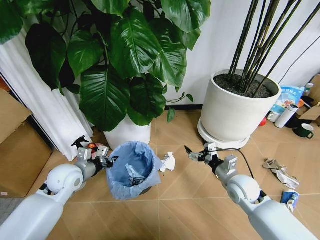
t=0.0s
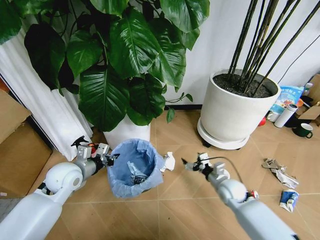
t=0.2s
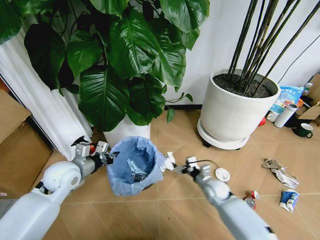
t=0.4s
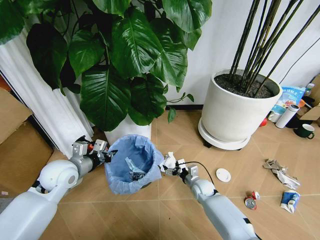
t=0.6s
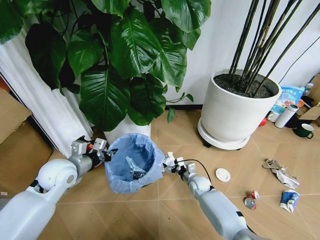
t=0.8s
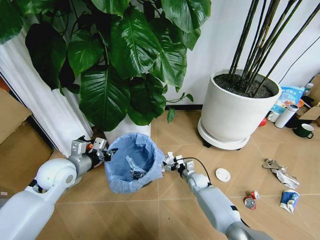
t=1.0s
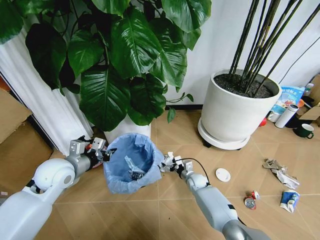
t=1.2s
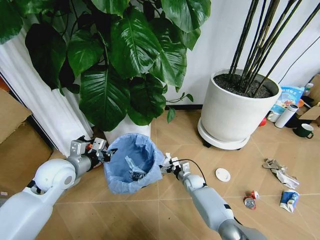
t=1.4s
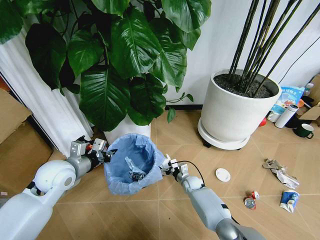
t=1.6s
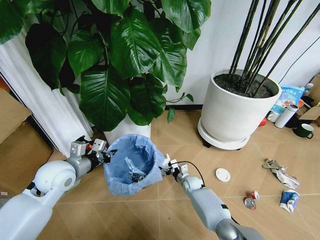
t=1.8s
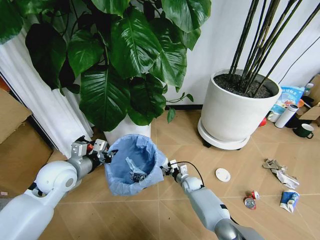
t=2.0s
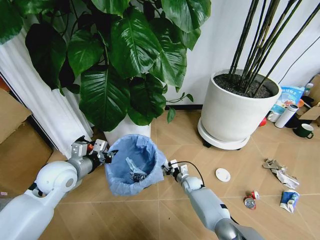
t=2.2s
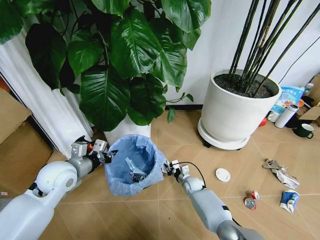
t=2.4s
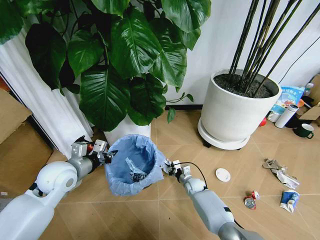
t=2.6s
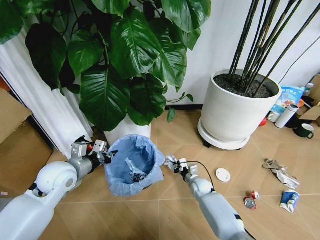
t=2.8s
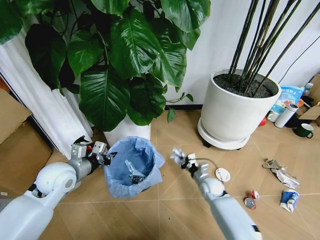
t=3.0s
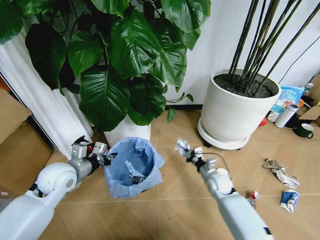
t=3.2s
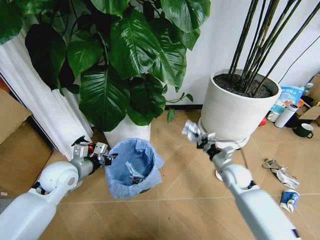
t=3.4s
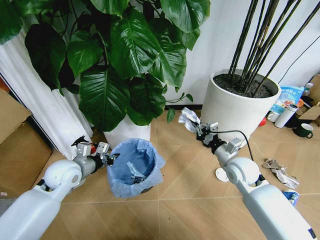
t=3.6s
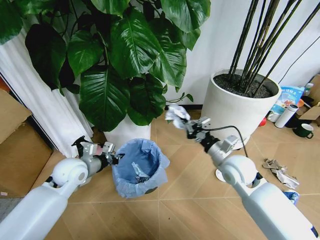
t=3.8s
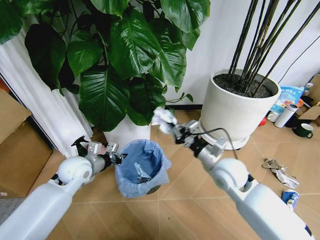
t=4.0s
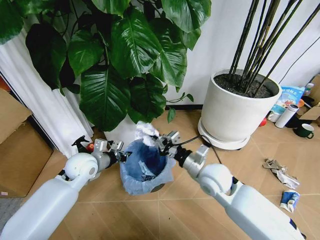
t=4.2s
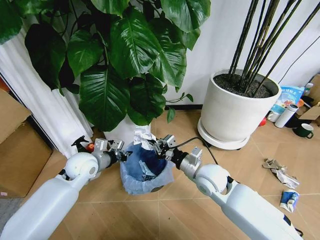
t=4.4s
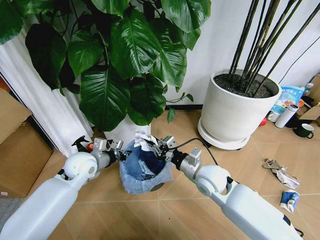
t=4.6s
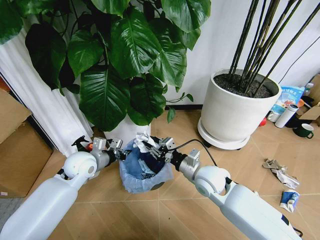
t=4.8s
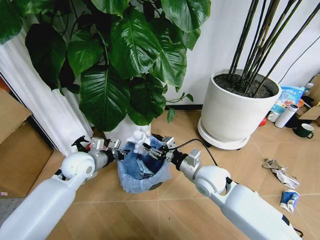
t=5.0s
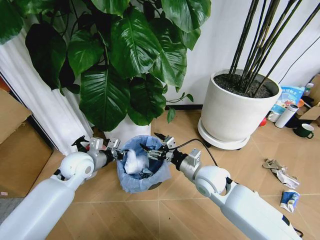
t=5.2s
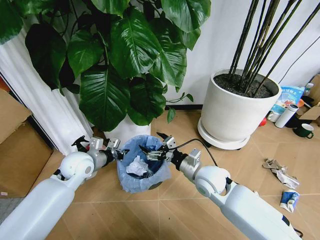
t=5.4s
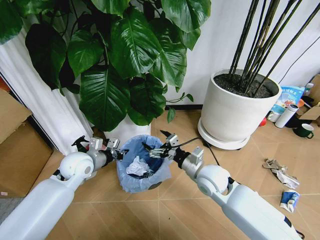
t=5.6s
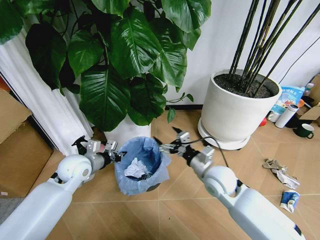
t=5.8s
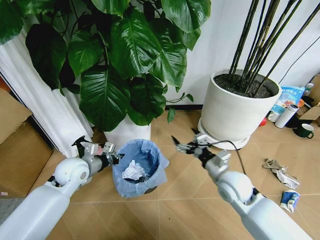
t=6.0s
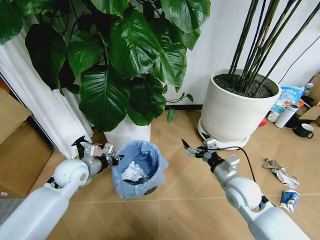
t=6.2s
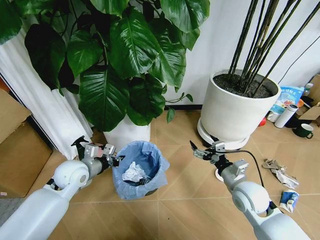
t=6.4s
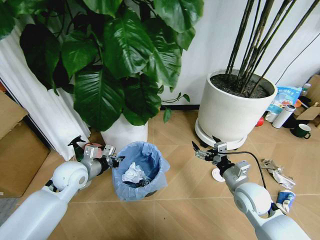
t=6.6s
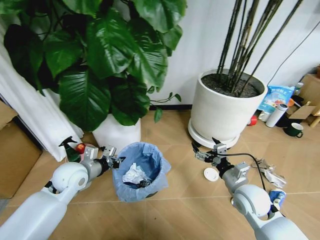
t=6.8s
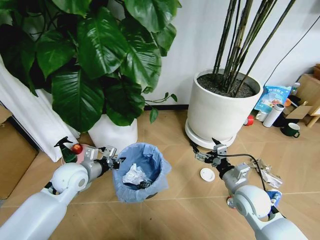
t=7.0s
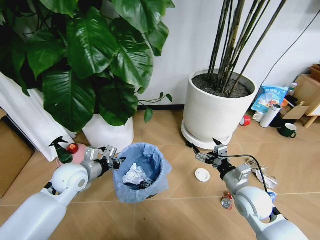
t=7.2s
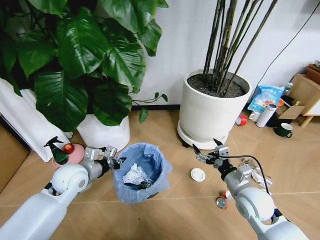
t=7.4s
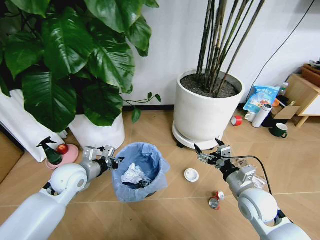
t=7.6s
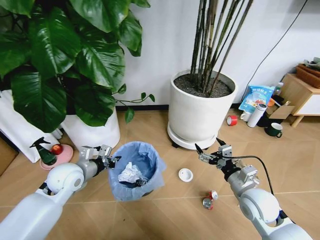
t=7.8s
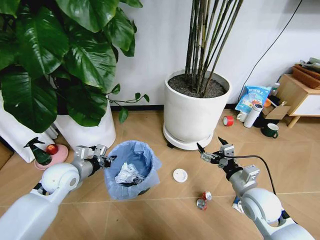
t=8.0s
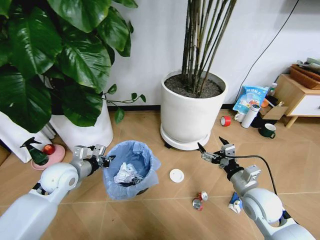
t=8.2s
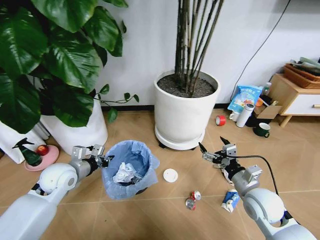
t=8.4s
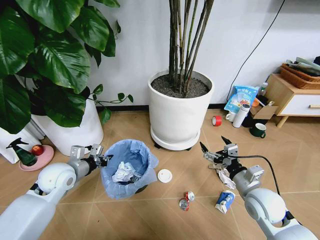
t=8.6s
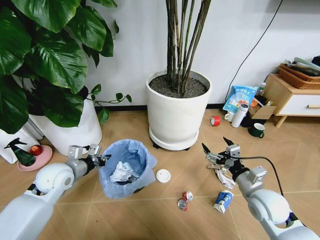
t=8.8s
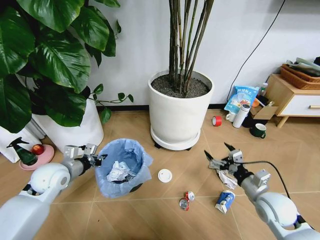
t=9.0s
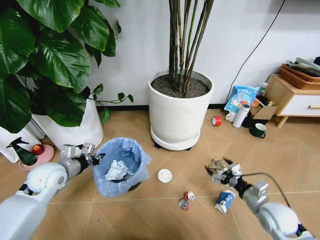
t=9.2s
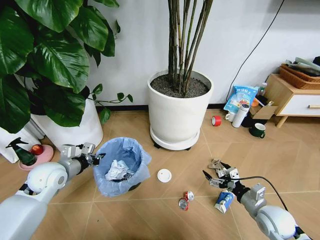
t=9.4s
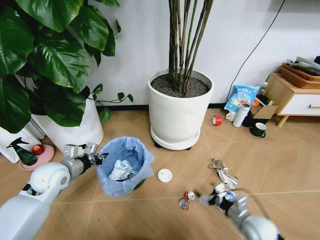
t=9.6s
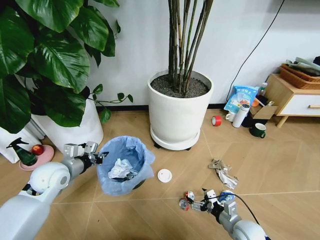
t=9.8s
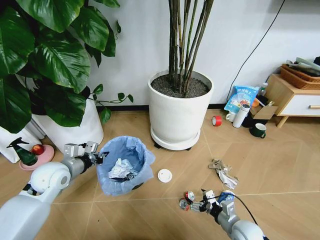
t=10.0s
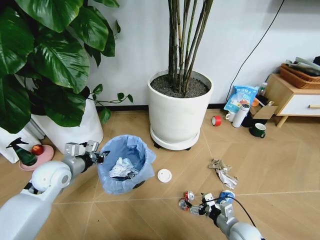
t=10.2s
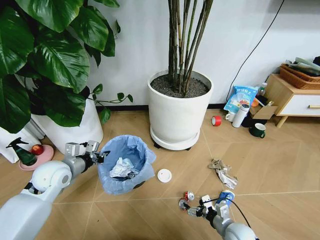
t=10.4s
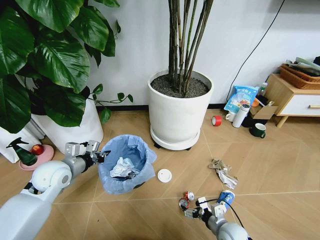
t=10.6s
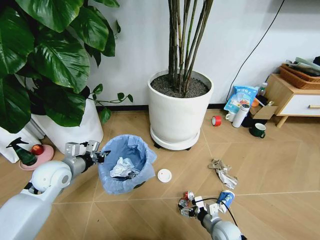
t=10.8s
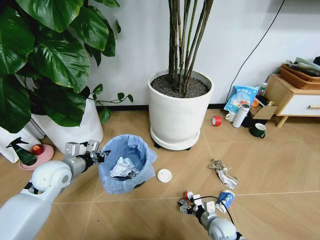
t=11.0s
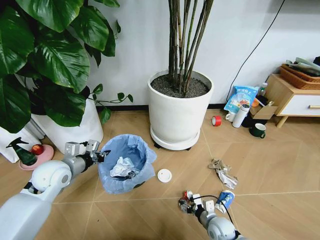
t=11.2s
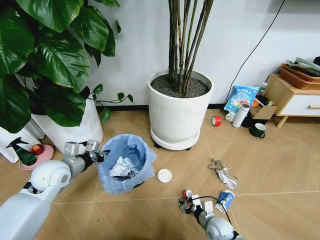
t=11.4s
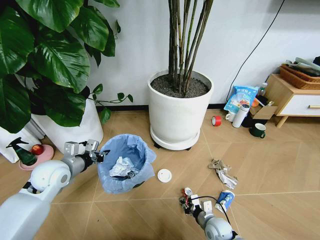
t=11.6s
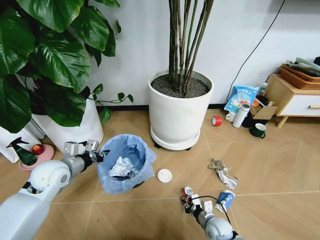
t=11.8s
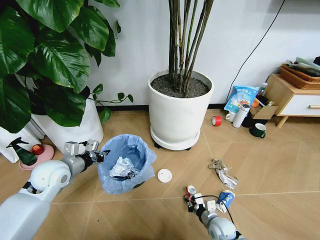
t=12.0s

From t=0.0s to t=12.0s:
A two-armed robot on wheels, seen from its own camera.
Task of the whole recording: Pick up the trash bin and place the garbage on the floor into it.
From t=0.0s to t=1.6s: The left gripper changes place by some 5 cm. Meanwhile the right gripper heads downward, to the left and forward, covering approximately 25 cm.
From t=1.6s to t=3.0s: The right gripper travels to the right and upward by roughly 10 cm, and closes.
From t=3.0s to t=4.4s: The right gripper shifts roughly 20 cm upward. The left gripper is displaced forward by some 5 cm.
From t=4.4s to t=6.0s: The right gripper shifts approximately 5 cm to the right, and opens up.
From t=6.0s to t=7.6s: The right gripper moves to the right and backward, approximately 10 cm.
From t=7.6s to t=9.0s: The left gripper travels to the left by some 5 cm, while the right gripper shifts some 5 cm to the right.
From t=9.0s to t=10.4s: The right gripper travels downward and to the left by approximately 20 cm.
From t=10.4s to t=12.0s: The right gripper changes place by roughly 5 cm, and closes its fingers.

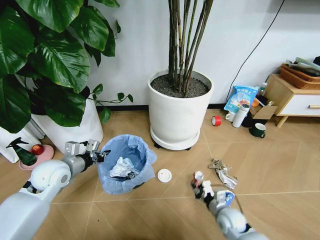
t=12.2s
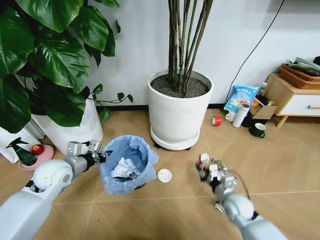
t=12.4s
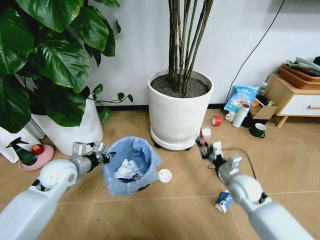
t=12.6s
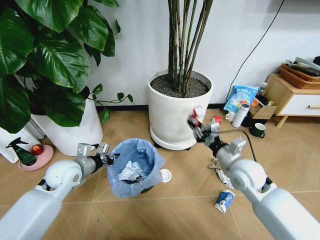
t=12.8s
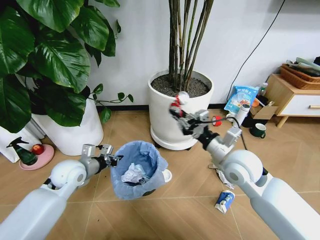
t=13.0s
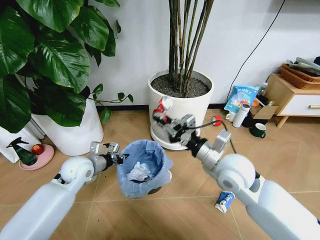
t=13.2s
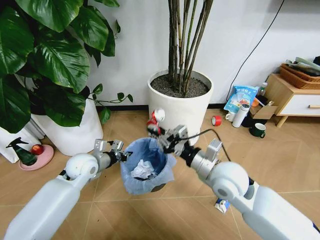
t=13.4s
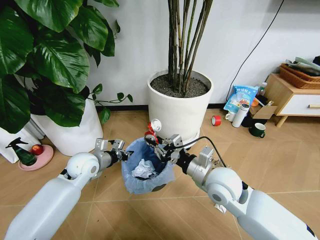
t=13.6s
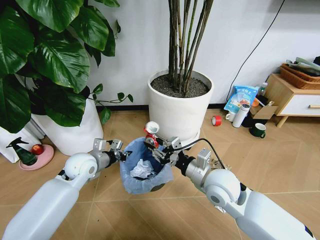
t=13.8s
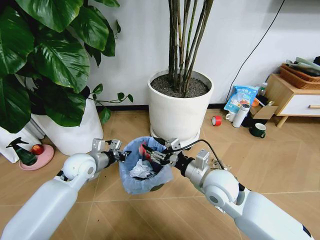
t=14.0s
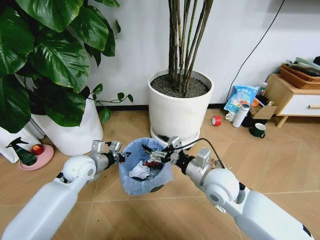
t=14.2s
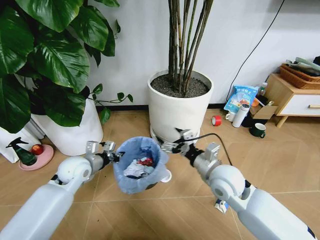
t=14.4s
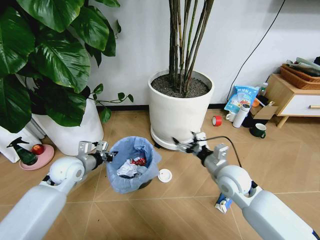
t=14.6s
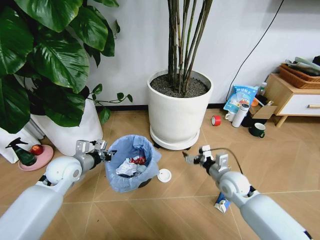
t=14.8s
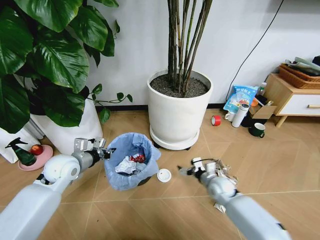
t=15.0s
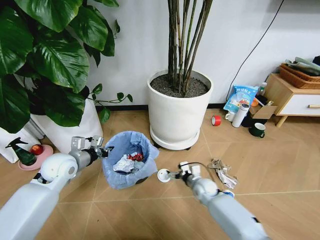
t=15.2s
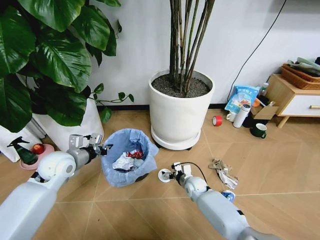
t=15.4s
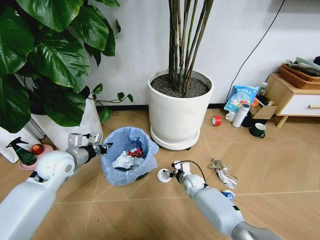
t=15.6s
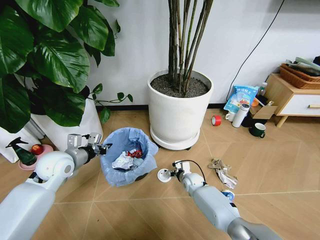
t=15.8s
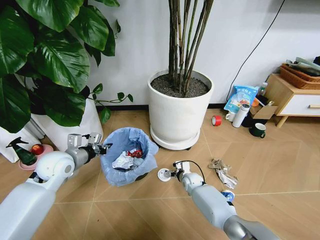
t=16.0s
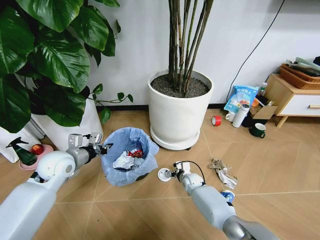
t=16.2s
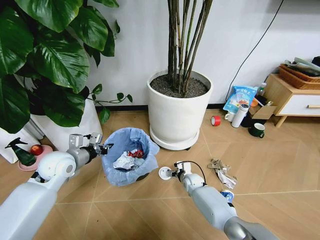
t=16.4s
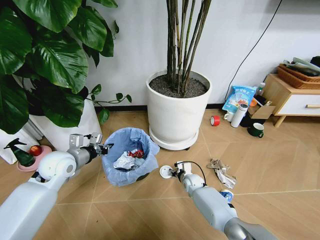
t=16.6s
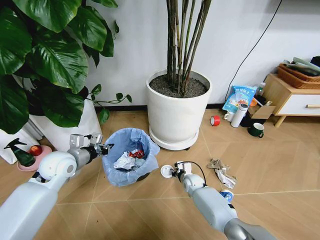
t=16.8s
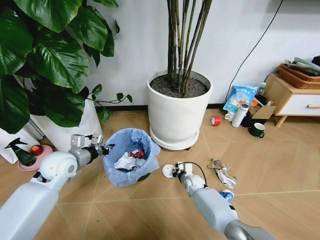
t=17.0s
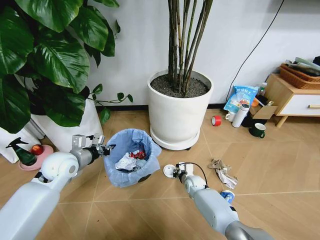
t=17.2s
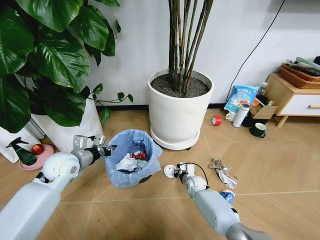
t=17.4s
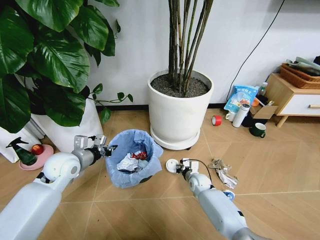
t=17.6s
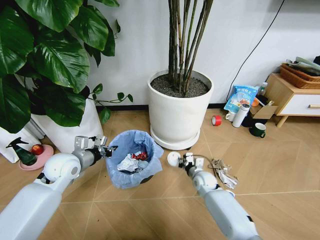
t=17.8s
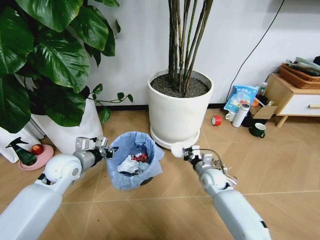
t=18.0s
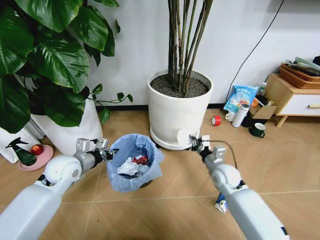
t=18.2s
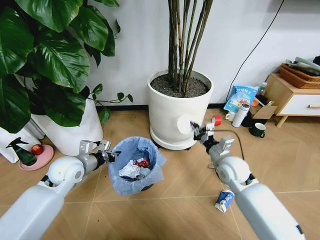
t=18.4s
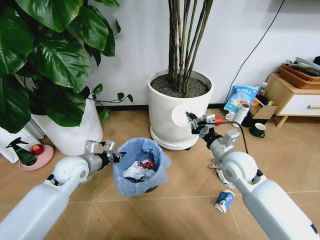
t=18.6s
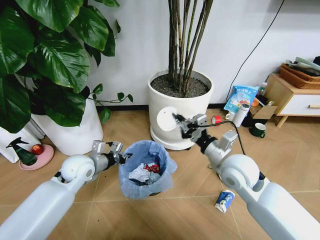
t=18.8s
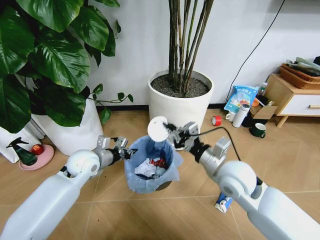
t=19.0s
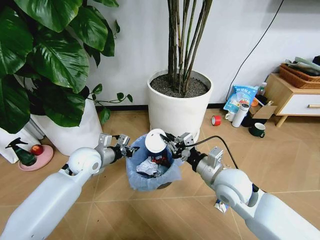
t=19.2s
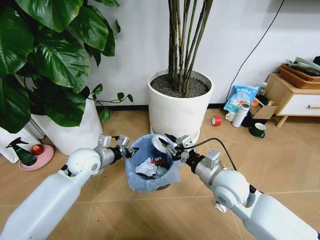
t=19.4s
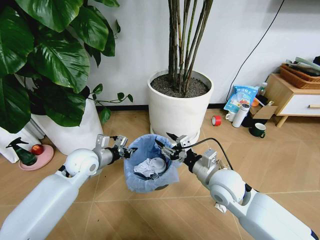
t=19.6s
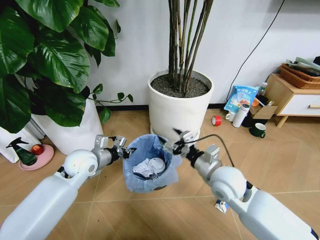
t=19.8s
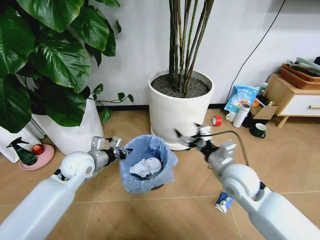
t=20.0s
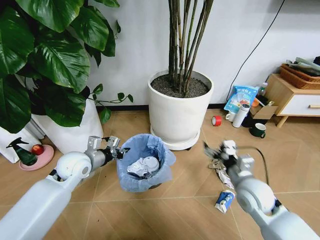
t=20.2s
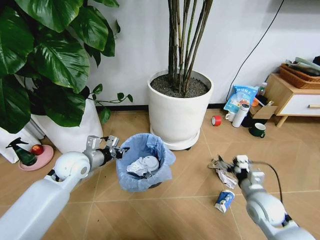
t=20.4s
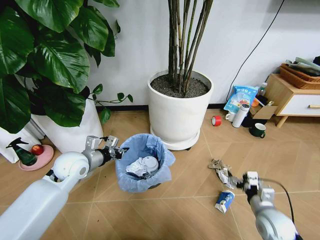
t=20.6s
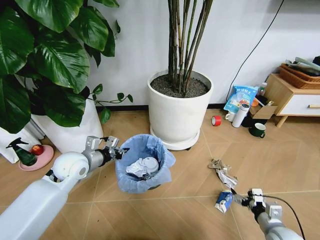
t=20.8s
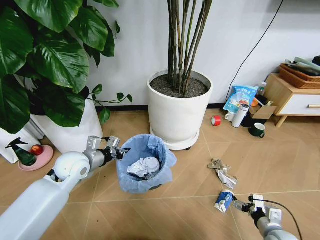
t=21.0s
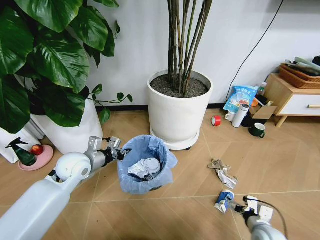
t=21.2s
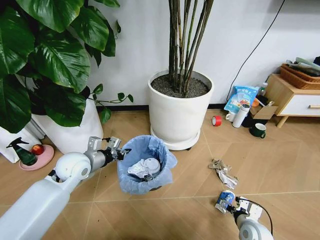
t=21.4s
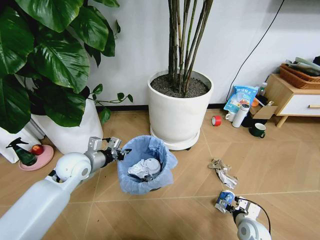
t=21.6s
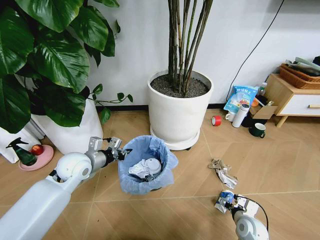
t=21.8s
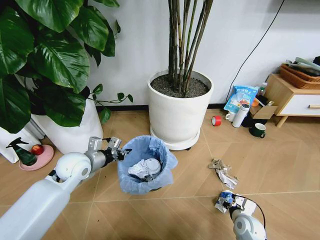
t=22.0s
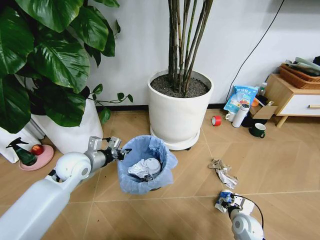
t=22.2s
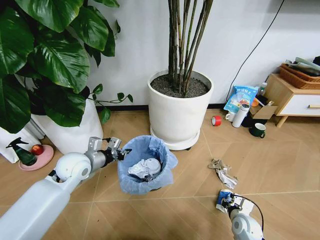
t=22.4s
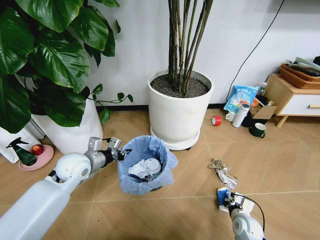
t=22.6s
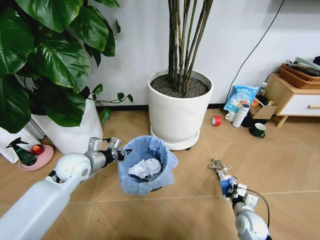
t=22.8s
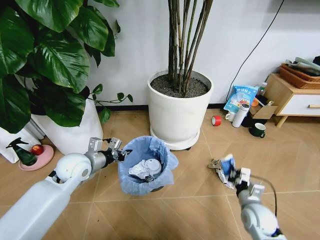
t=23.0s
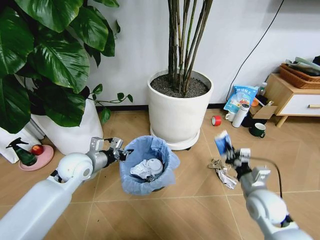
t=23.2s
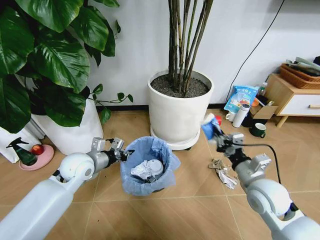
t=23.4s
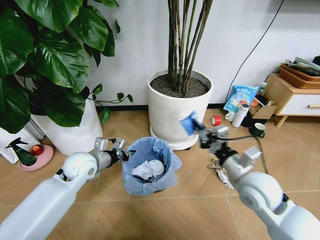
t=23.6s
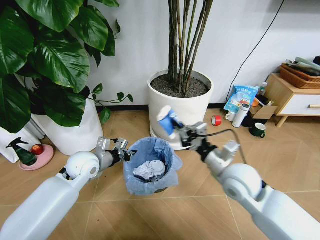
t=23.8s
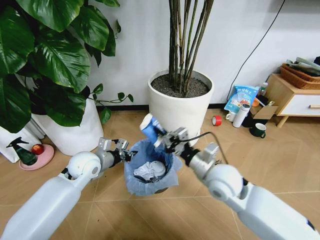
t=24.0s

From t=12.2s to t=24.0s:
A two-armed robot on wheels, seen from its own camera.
Task of the whole recording: Pick up the trash bin and place the garbage on the floor into it.
From t=12.2s to t=13.6s: The right gripper shifts roughly 25 cm upward; the left gripper moves to the right, approximately 5 cm.
From t=13.6s to t=15.2s: The right gripper goes approximately 25 cm downward, and opens up. Meanwhile the left gripper moves to the left, approximately 5 cm.
From t=15.2s to t=16.6s: The right gripper changes place by some 5 cm, and closes its fingers.
From t=16.6s to t=18.2s: The right gripper is displaced upward and to the right by roughly 20 cm, and closes.
From t=18.2s to t=19.6s: The left gripper heads to the right, covering some 5 cm. The right gripper goes approximately 15 cm upward, backward and to the left, and opens its fingers.
From t=19.6s to t=21.0s: The right gripper is displaced to the right, downward and backward by roughly 30 cm, and opens up.
From t=21.0s to t=22.6s: The right gripper heads downward, to the left and forward, covering some 10 cm, and closes.
From t=22.6s to t=24.0s: The right gripper is displaced upward and to the left by some 30 cm.
